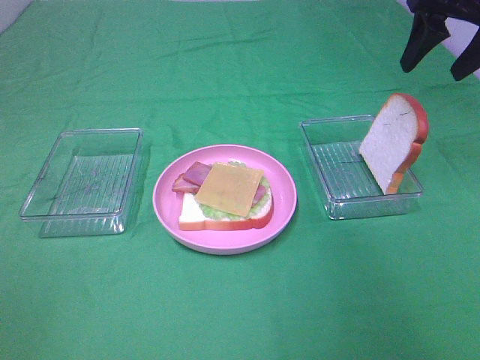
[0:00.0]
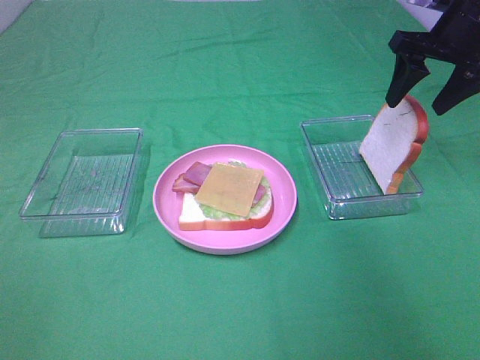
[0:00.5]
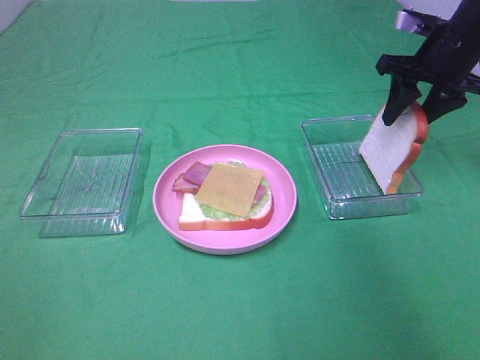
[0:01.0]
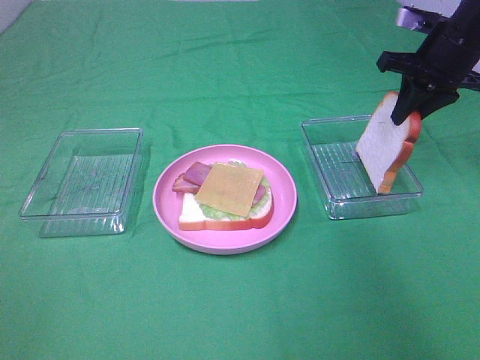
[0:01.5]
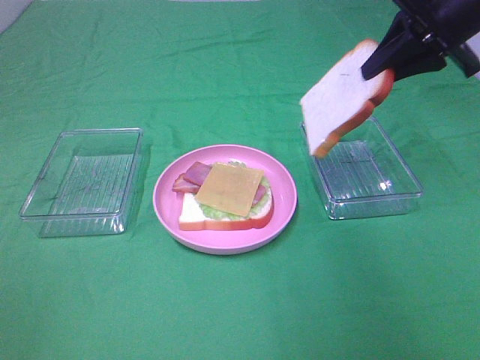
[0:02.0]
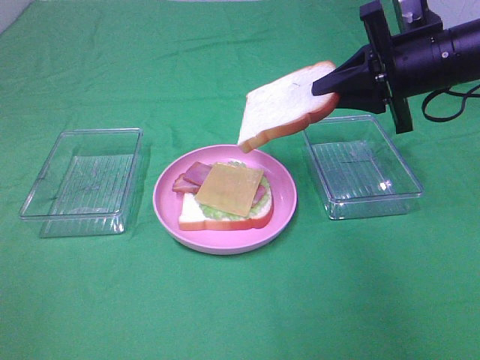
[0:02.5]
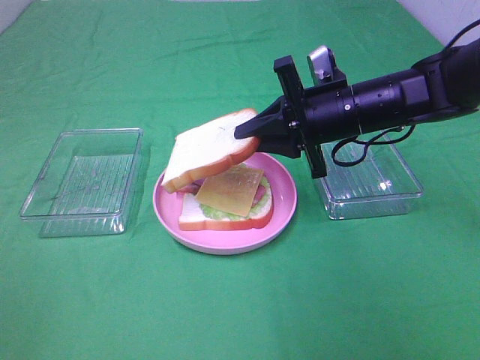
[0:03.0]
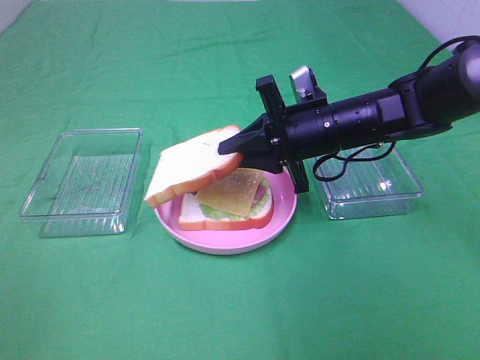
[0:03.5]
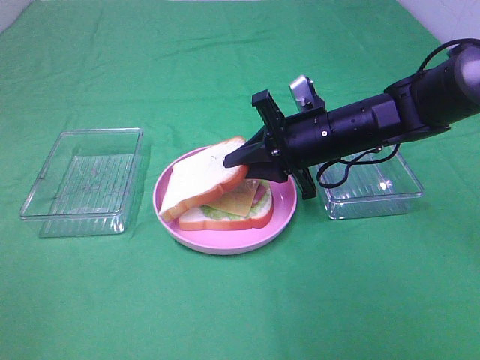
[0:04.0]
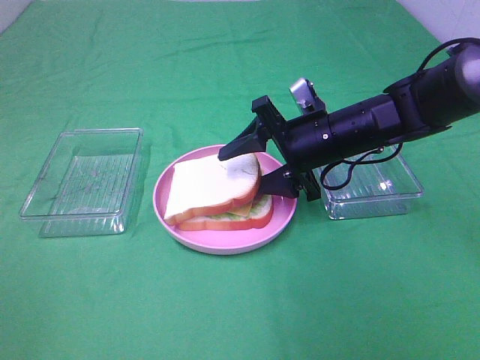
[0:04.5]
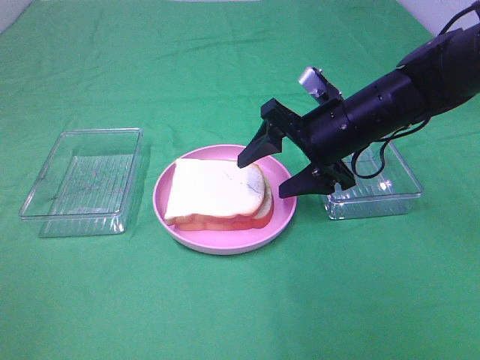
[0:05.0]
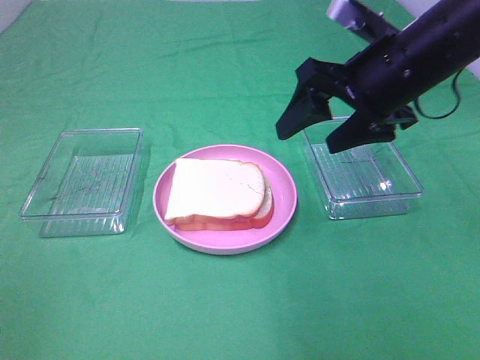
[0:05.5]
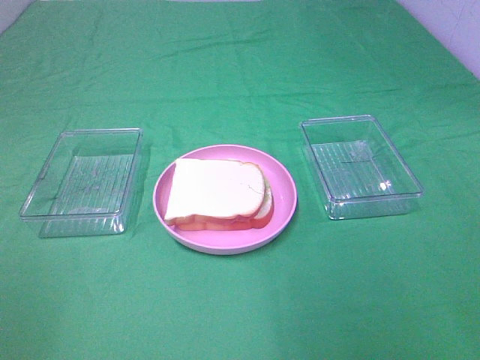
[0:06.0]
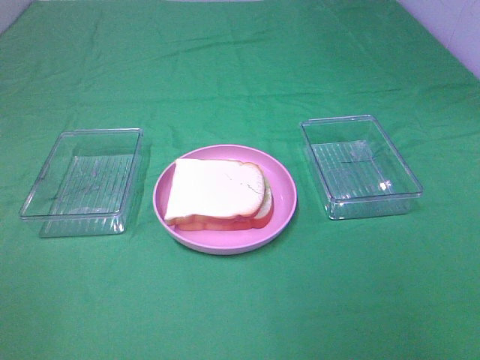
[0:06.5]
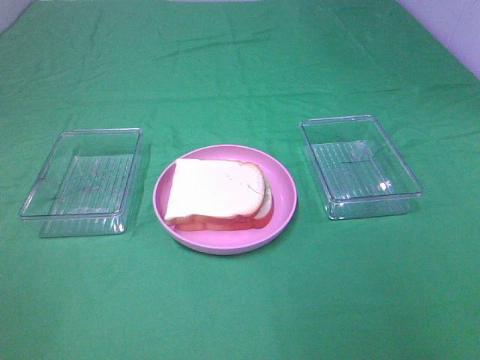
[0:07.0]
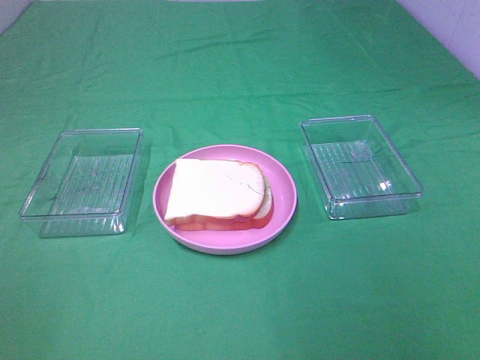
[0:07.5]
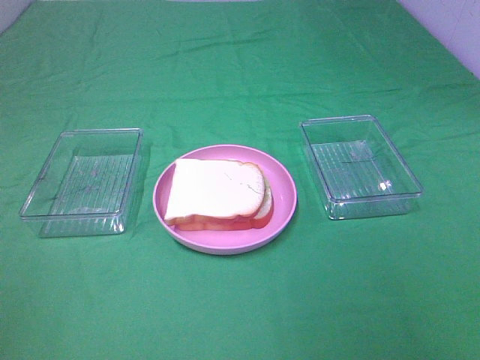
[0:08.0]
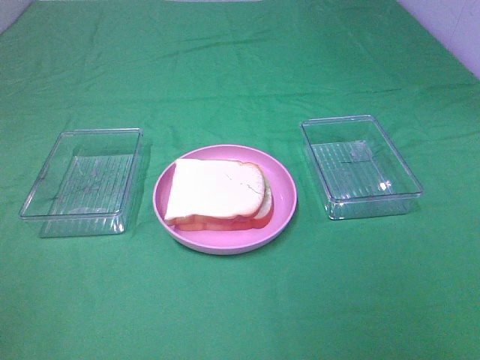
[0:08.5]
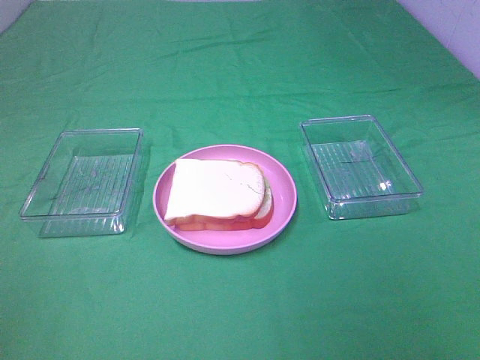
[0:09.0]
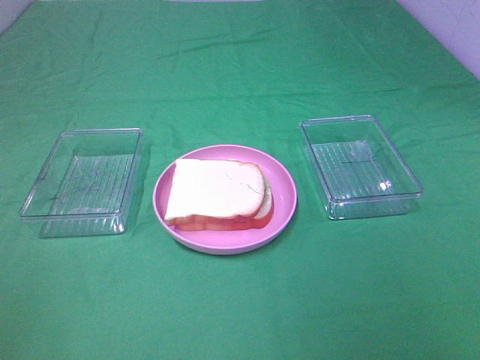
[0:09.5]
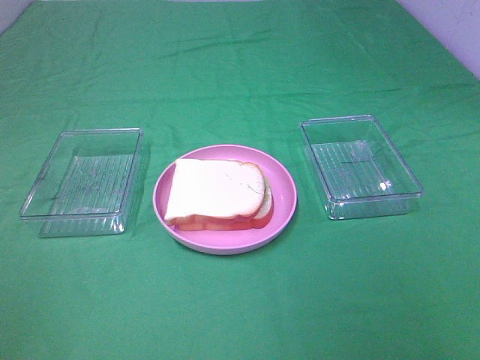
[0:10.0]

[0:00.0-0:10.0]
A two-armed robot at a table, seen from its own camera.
Task of the whole recording: Make sandwiches.
Step, 0:01.5 to 0:05.0: Right hand:place the bread slice on the cheese slice.
0:00.0 to 0:02.0: The right gripper travels downward and back again, approximately 10 cm each way, and closes.
0:02.0 to 0:04.0: The right gripper is displaced downward and to the left by about 20 cm.
0:04.0 to 0:06.0: The right gripper goes some 35 cm upward, backward and to the right, and opens up.
